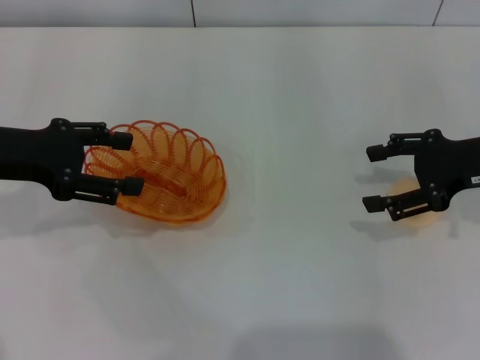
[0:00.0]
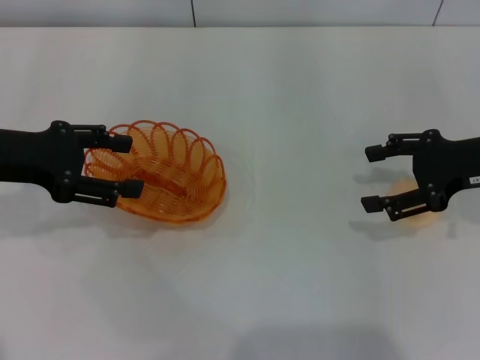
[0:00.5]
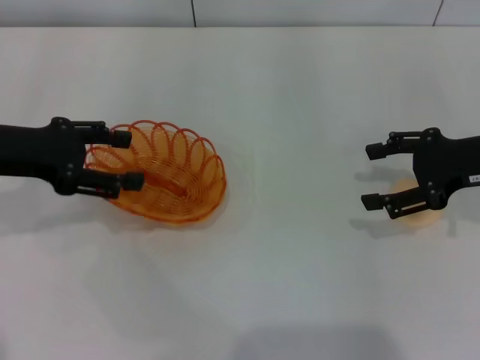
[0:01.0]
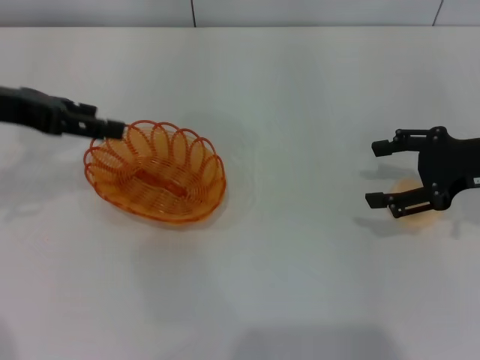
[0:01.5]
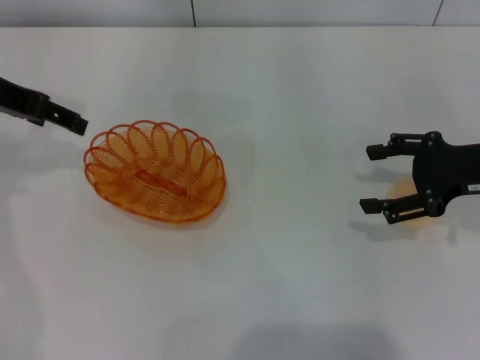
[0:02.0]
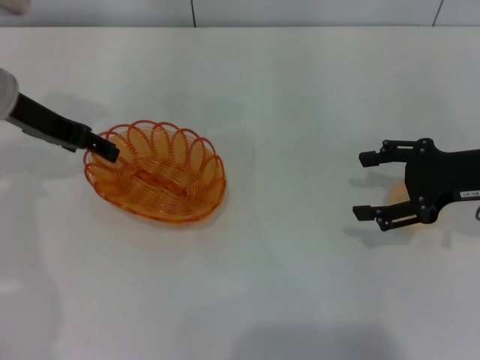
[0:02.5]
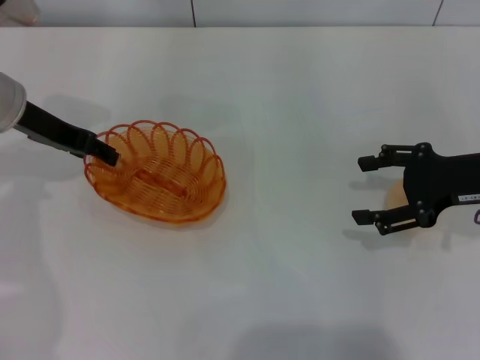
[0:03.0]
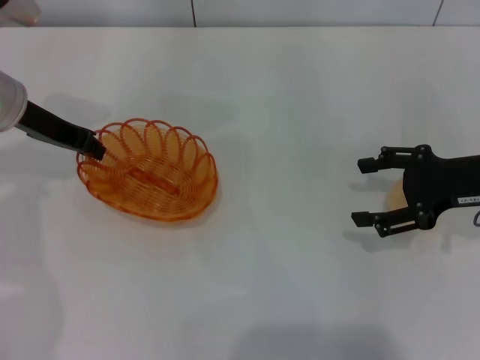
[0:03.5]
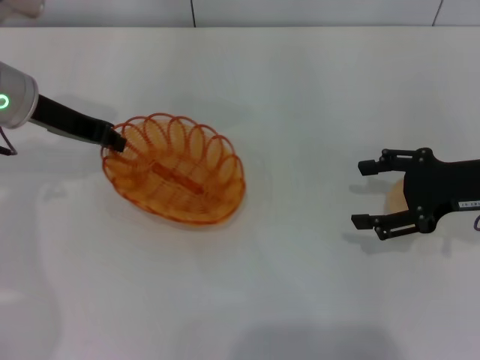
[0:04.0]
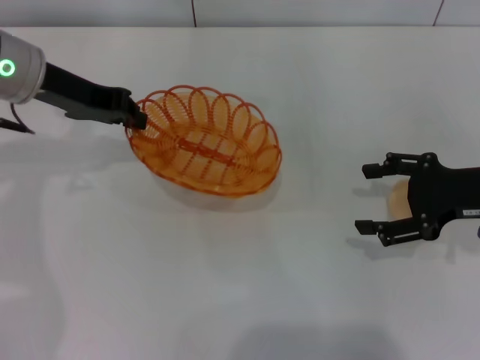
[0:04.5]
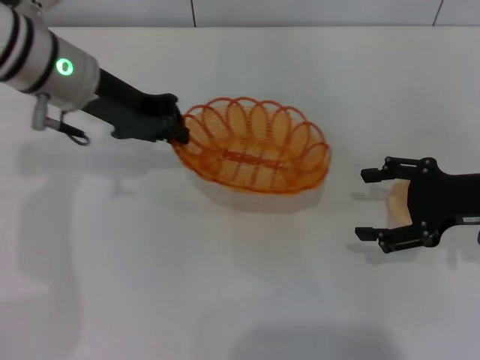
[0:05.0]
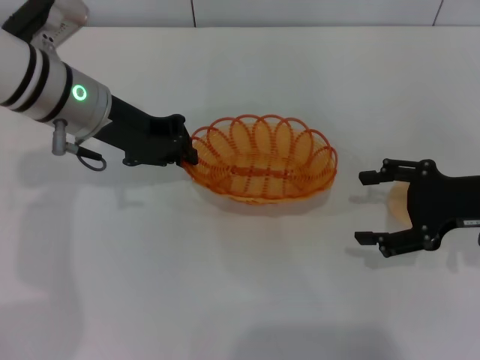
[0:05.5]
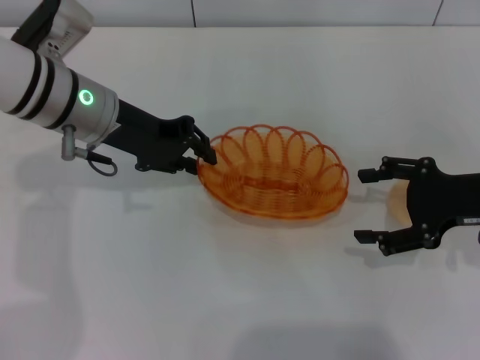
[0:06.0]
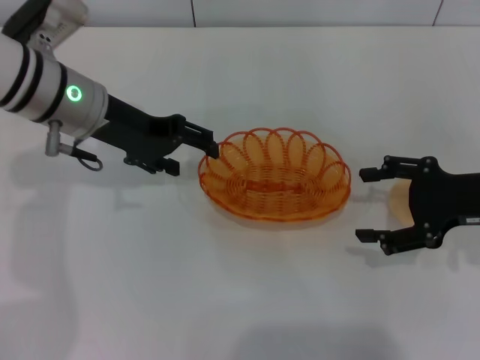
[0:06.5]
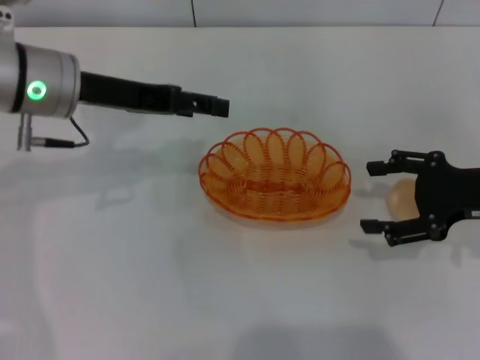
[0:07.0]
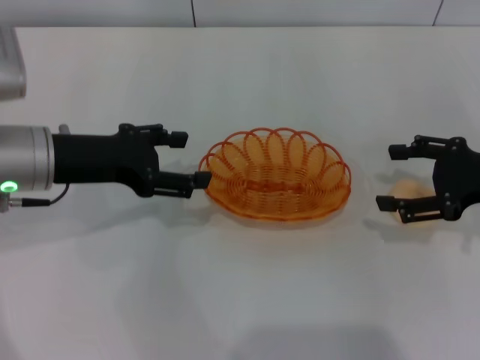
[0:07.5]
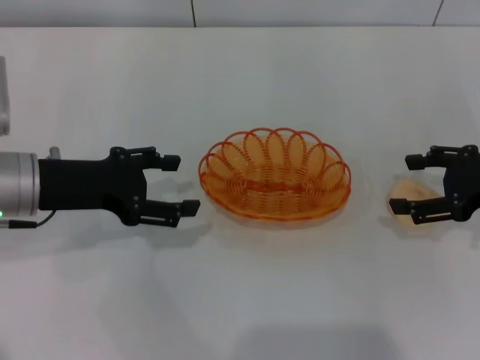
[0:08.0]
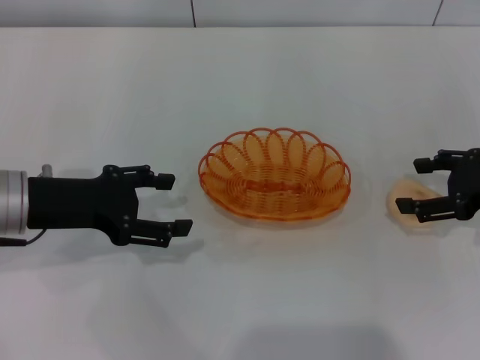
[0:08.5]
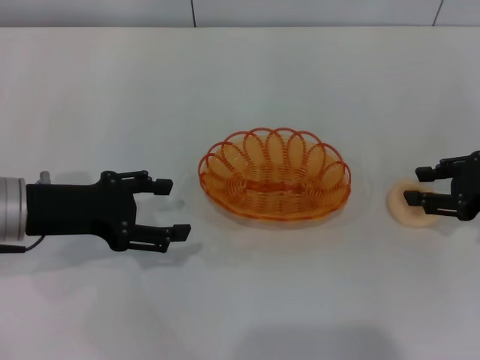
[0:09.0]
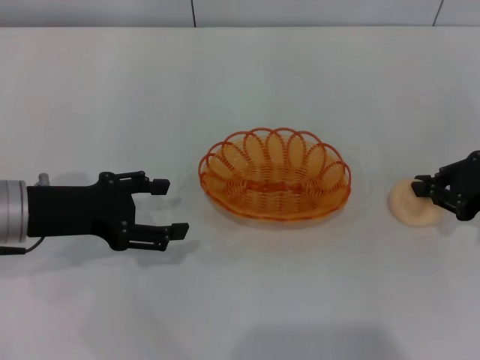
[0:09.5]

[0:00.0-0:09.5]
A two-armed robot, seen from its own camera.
Step, 0:00.0 to 0:04.0: Pick up the basket with the left gripper.
Step, 0:04.5 to 0:06.5: Place the basket in the center of view with the left gripper.
0:00.0 to 0:02.0: The left gripper goes roughly 10 cm forward and upward.
0:02.0 to 0:04.0: The left gripper shifts roughly 5 cm downward, and closes up.
0:04.0 to 0:05.5: The left gripper is displaced to the right by about 5 cm.
0:05.5 to 0:07.5: The left gripper goes roughly 10 cm backward and to the left, and opens its fingers.
0:07.5 to 0:09.5: The right gripper closes up; the left gripper changes place by some 5 cm.

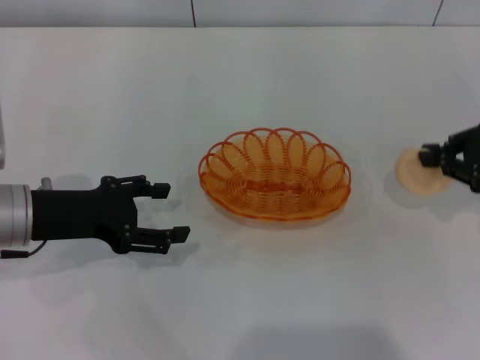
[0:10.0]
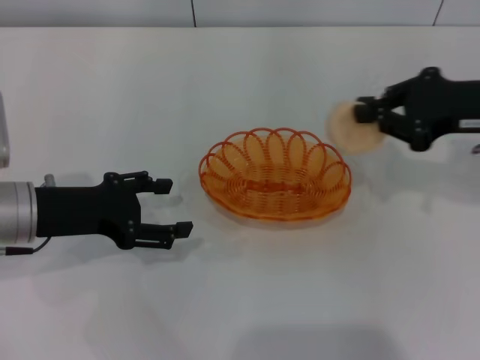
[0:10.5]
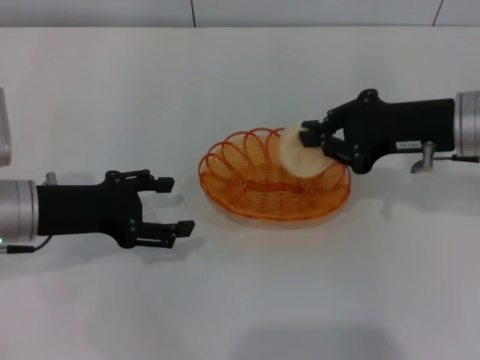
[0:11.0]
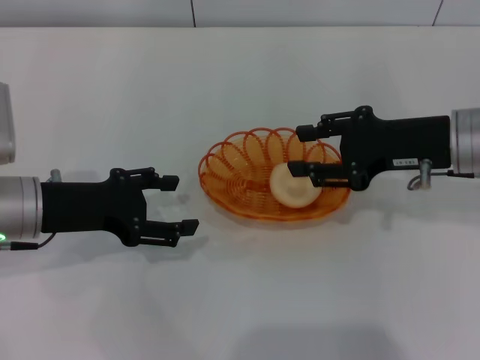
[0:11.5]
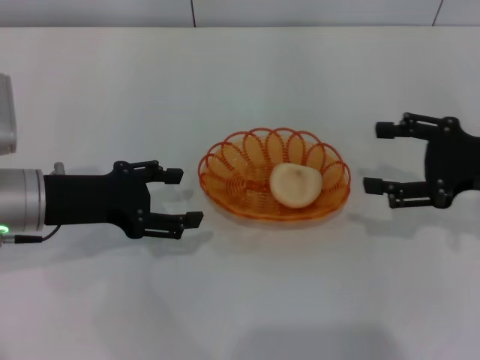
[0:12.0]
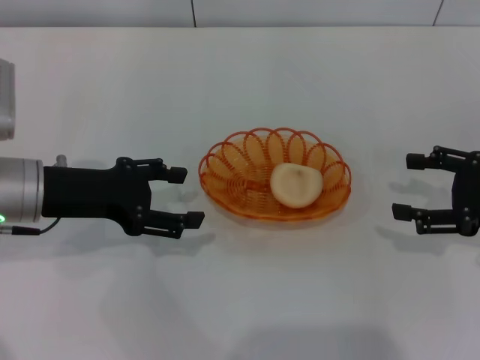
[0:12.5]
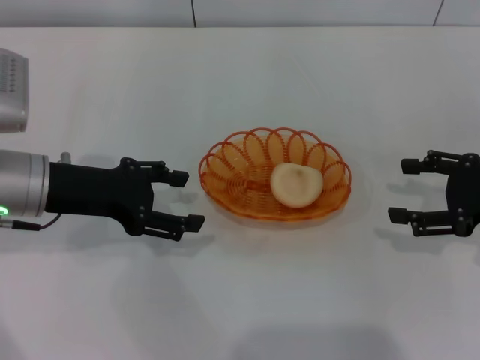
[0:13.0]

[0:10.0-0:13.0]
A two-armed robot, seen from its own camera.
Step, 0:10.5 to 0:11.5: Place the egg yolk pastry into the basket with the right gripper.
0:10.0 to 0:11.5: The right gripper travels to the left by about 10 cm, and opens its fingers.
0:11.5 to 0:13.0: The right gripper heads to the right, covering approximately 10 cm, and opens.
